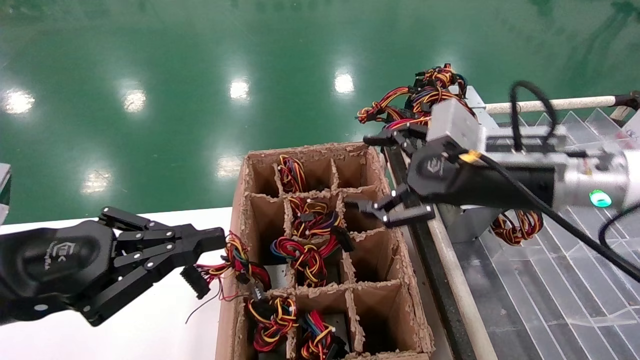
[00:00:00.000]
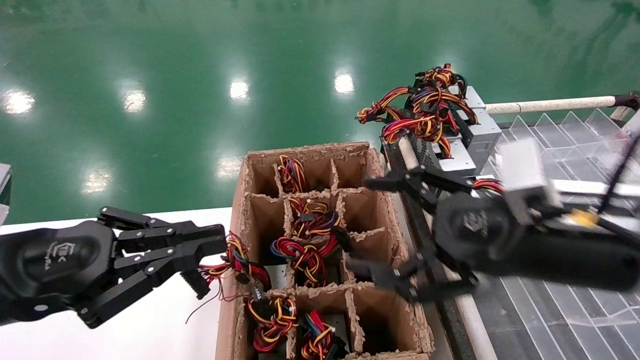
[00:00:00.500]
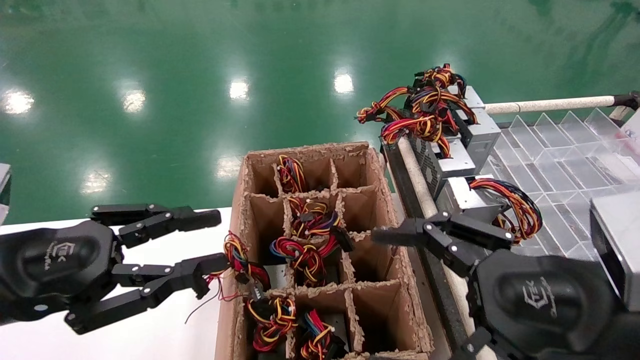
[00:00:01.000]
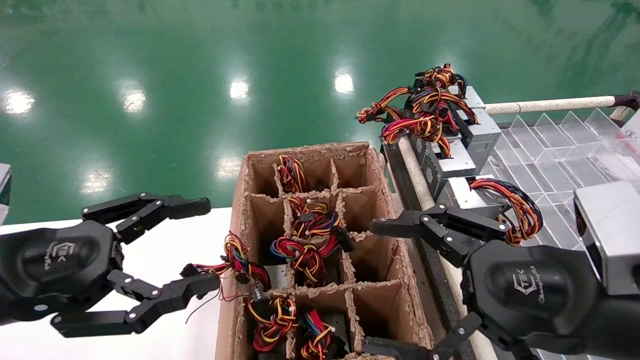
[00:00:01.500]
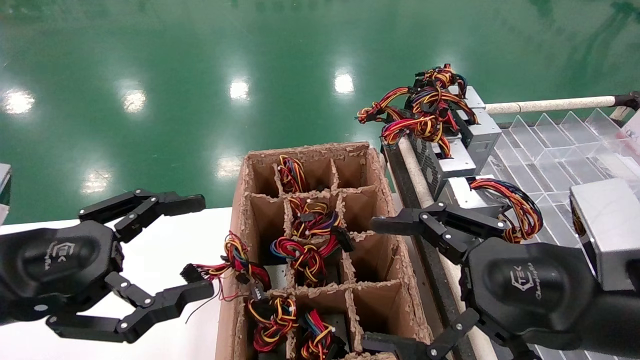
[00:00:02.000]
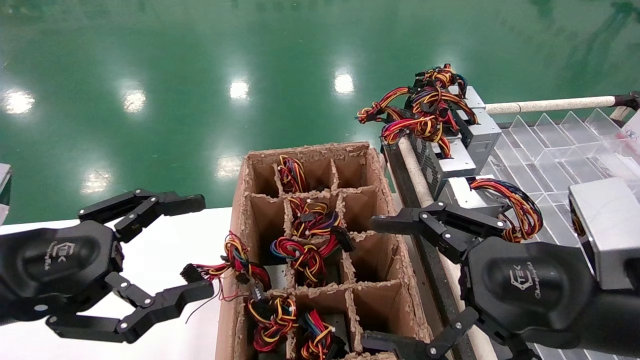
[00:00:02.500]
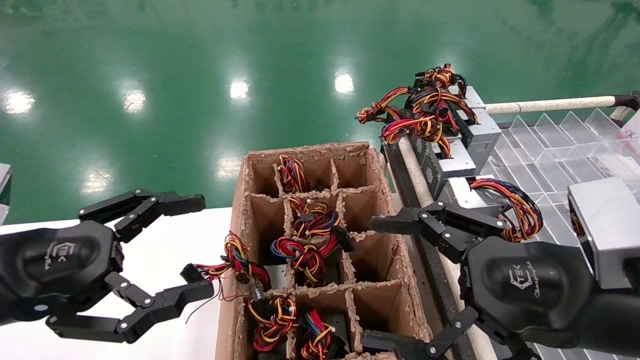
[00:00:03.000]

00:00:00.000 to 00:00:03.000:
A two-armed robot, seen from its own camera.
00:00:00.000 to 00:00:01.500: The left gripper opens its fingers. The right gripper travels backward and downward by approximately 15 cm.
00:00:01.500 to 00:00:03.000: Both grippers stay about where they are.
